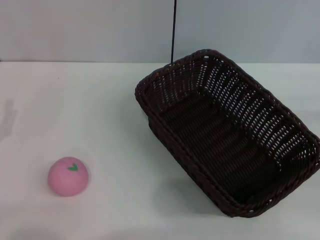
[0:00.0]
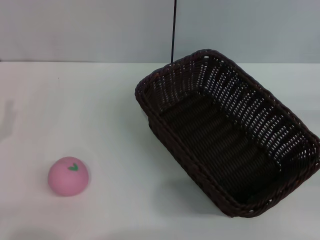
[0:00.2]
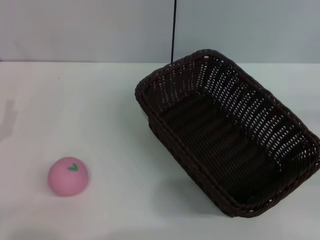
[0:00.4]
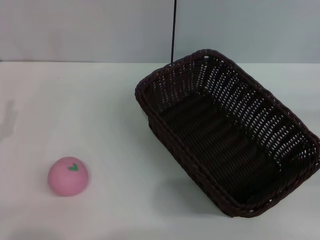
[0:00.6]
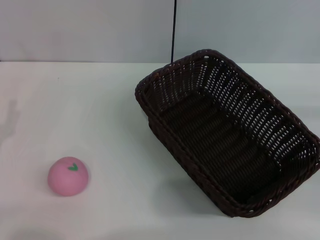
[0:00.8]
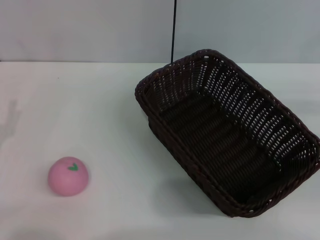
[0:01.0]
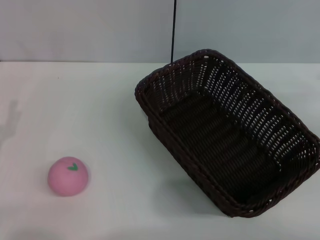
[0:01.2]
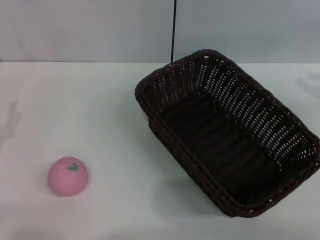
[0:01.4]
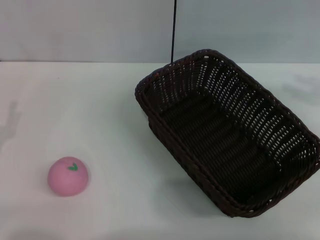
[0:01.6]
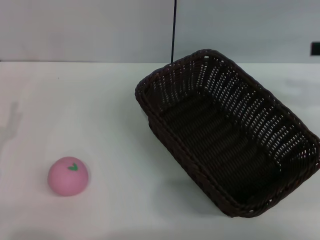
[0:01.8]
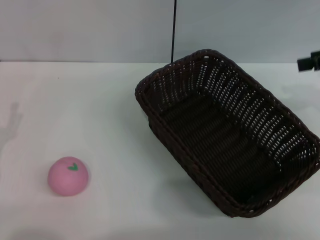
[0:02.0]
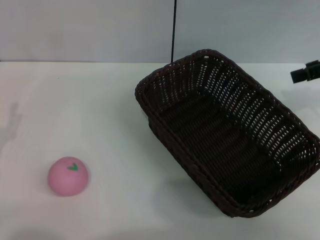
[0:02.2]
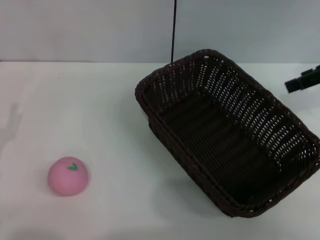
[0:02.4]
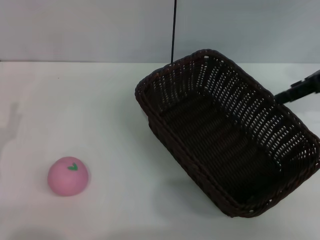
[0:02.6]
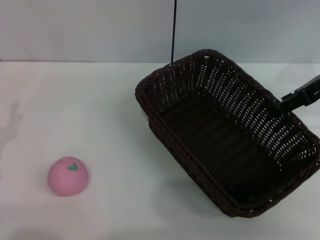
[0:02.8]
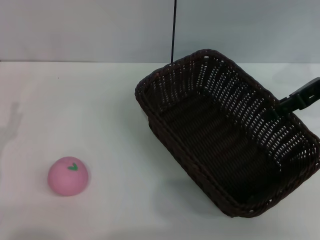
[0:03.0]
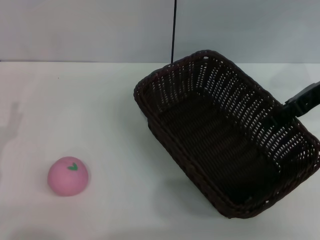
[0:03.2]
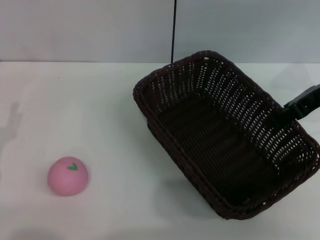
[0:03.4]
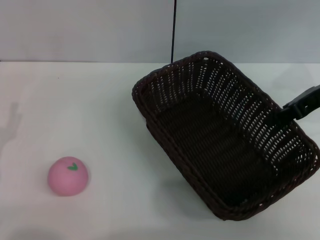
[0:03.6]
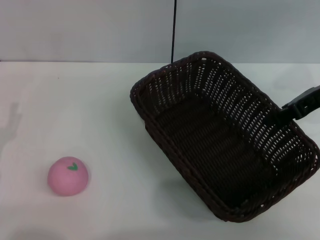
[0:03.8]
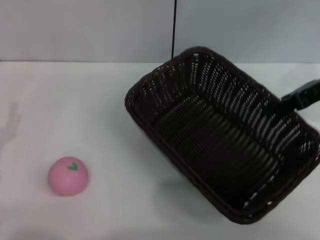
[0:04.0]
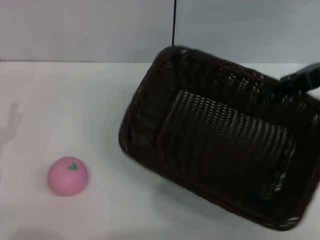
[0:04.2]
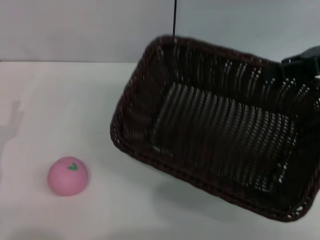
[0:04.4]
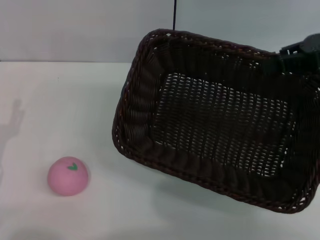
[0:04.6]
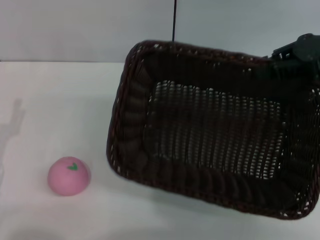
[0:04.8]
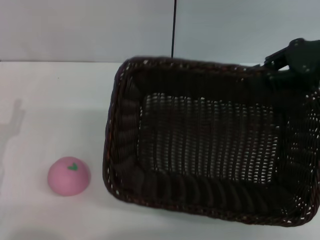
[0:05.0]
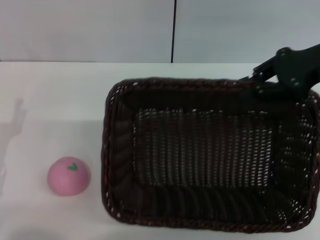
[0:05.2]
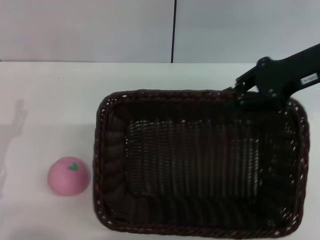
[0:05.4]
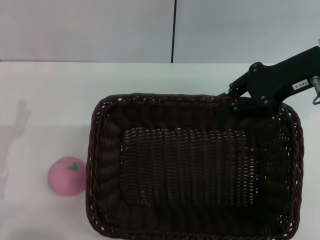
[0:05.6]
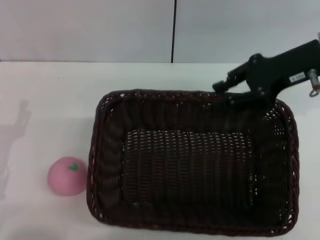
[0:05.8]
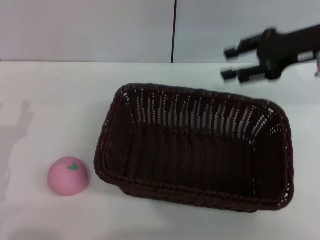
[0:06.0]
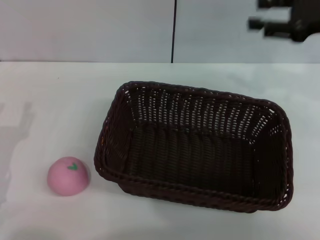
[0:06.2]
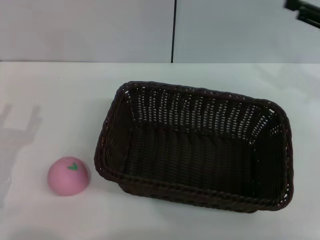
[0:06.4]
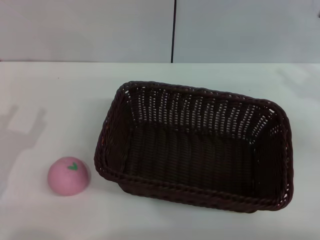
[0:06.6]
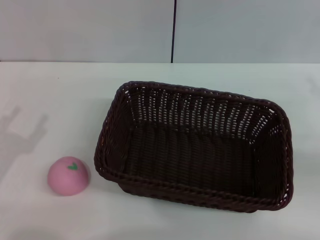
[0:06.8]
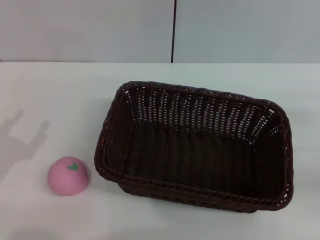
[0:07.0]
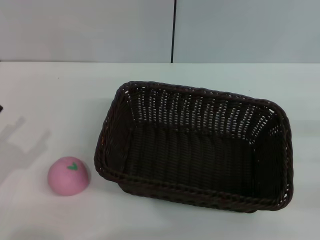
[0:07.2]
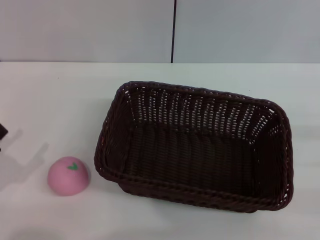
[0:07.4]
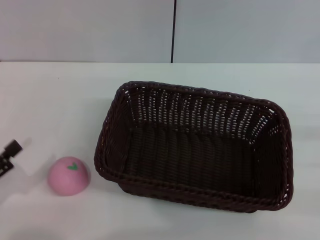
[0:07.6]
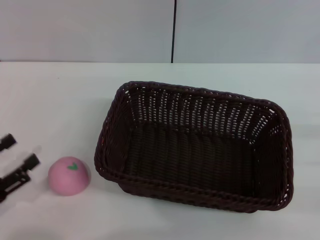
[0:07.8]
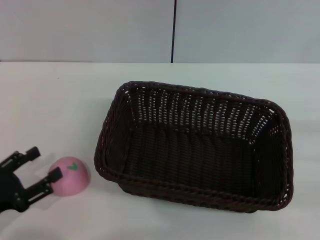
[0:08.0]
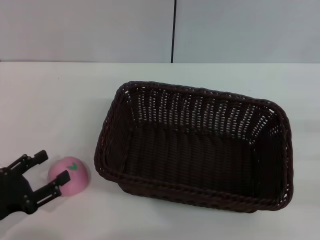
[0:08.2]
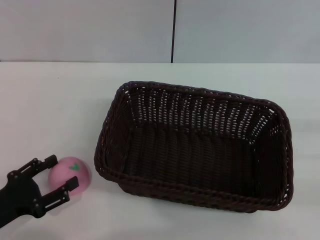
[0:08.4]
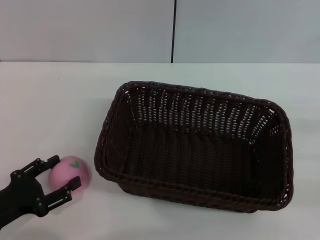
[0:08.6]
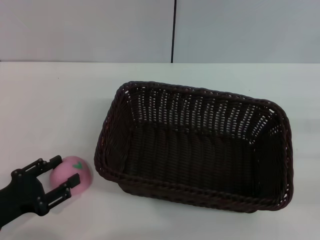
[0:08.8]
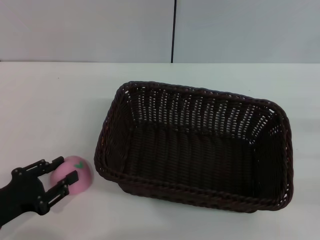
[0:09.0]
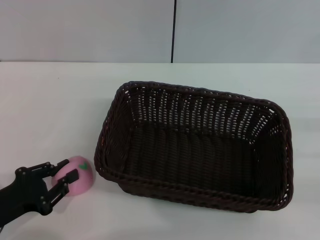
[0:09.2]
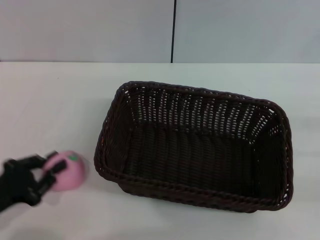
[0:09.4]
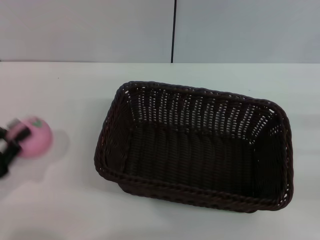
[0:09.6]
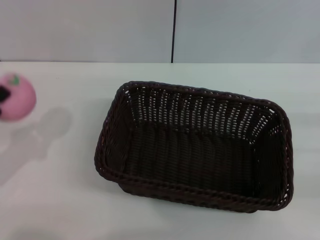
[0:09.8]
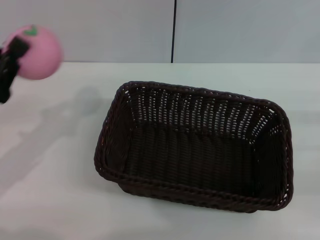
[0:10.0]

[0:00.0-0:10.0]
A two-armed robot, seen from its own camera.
Step, 0:00.0 to 0:04.4: Pick up the dark basket with the right gripper.
Step, 0:04.6 to 0:06.2: Place the dark basket in the center of view with the right gripper.
Step, 0:06.4 to 0:09.6: Pick up the peach with the left gripper.
0:00.0 to 0:01.4: The right gripper shifts about 15 cm upward and forward.
0:01.4 to 0:02.8: The right gripper is displaced to the left and forward by some 15 cm.
0:02.8 to 0:04.2: The right gripper closes.
0:04.2 to 0:05.8: The right gripper is displaced to the left by roughly 5 cm.
0:05.8 to 0:07.2: The left gripper moves approximately 5 cm. Meanwhile the right gripper goes about 30 cm to the right, backward and downward, and opens its fingers.
0:07.2 to 0:08.6: The left gripper ends up roughly 5 cm from where it was.
0:08.6 to 0:10.0: The left gripper goes some 10 cm upward and forward, and closes its fingers.

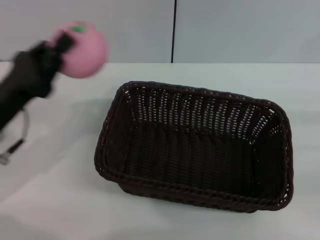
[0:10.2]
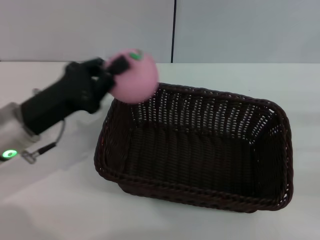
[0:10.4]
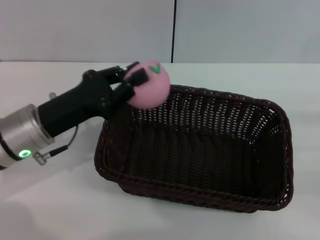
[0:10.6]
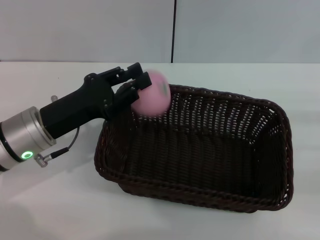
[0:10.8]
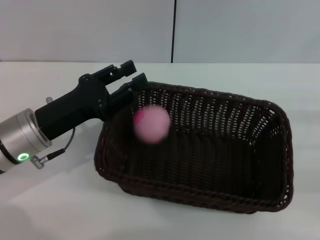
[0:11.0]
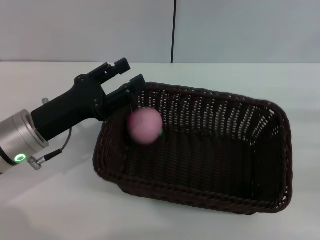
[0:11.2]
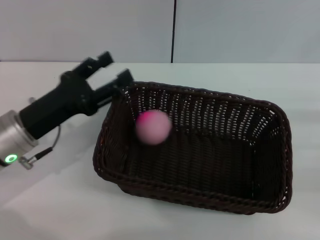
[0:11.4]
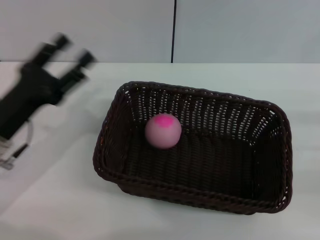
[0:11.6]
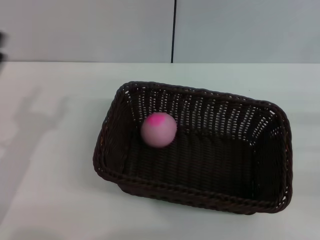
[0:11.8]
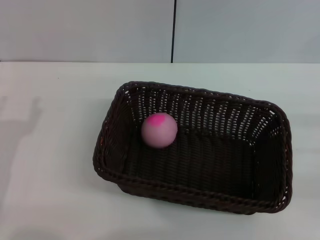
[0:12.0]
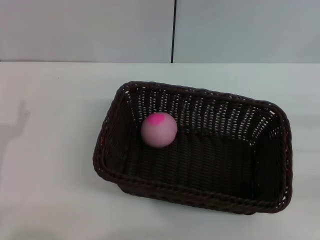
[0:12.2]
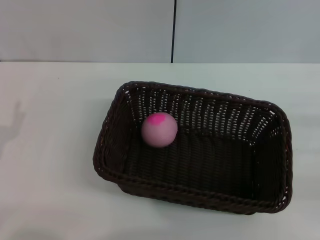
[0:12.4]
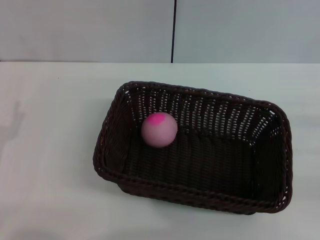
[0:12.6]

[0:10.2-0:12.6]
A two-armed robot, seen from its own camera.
Step, 0:10.2 to 0:11.2: Place the peach into the basket with the left gripper.
0:10.2 to 0:11.4: The left gripper opens.
0:11.4 to 0:12.6: The left gripper heads backward and to the left, covering approximately 10 cm.

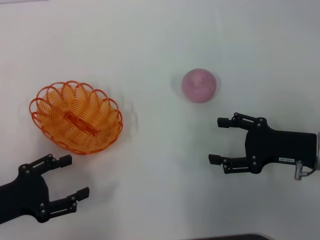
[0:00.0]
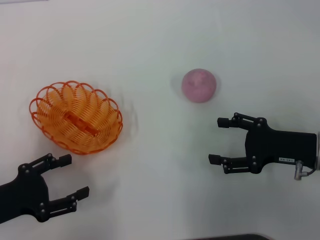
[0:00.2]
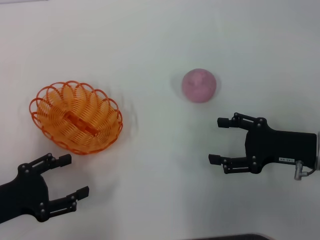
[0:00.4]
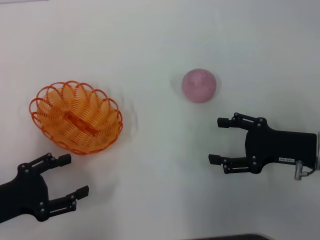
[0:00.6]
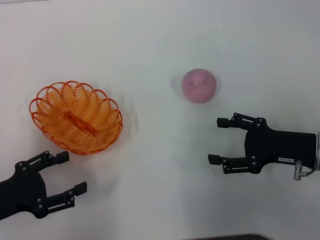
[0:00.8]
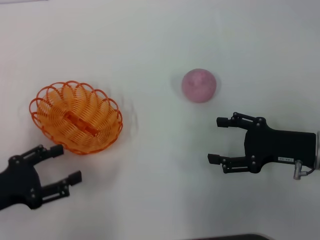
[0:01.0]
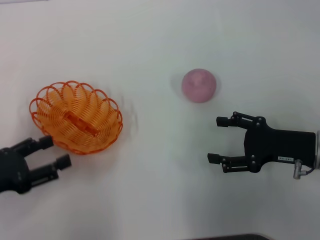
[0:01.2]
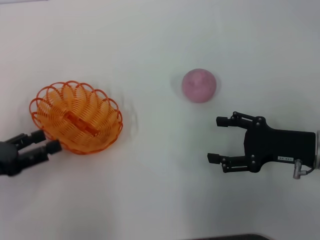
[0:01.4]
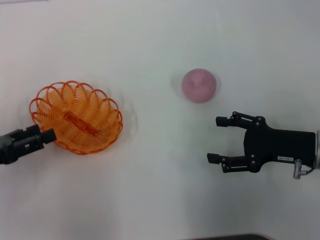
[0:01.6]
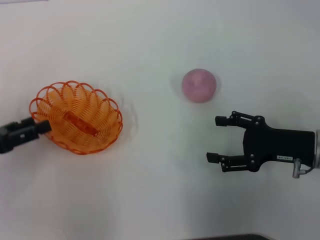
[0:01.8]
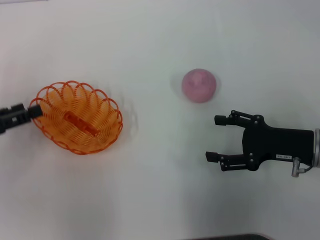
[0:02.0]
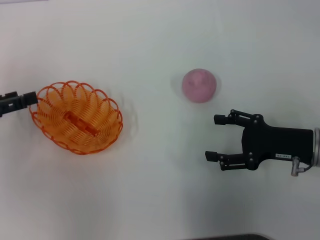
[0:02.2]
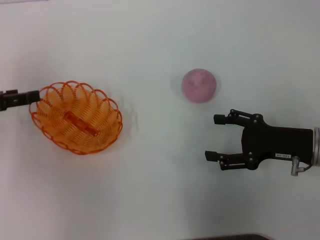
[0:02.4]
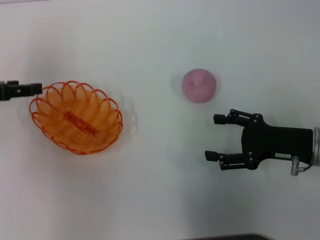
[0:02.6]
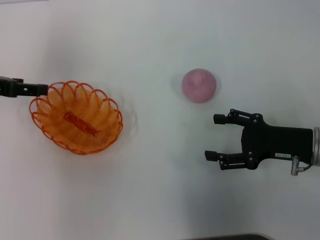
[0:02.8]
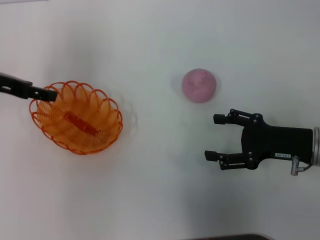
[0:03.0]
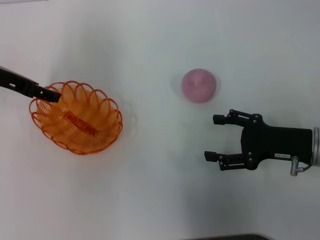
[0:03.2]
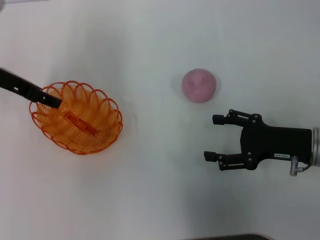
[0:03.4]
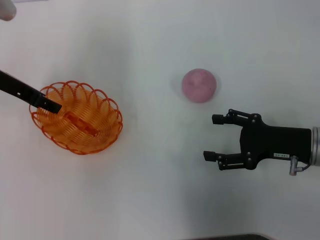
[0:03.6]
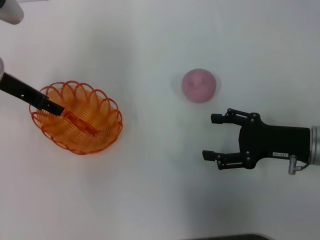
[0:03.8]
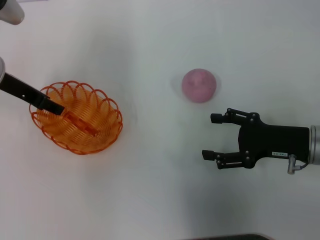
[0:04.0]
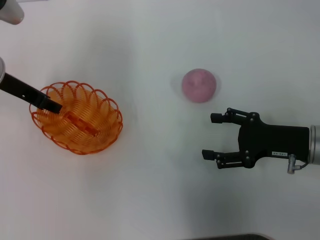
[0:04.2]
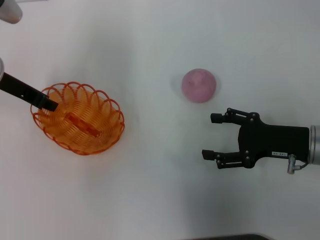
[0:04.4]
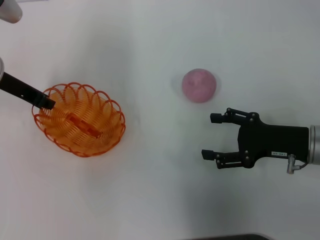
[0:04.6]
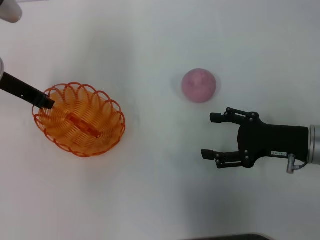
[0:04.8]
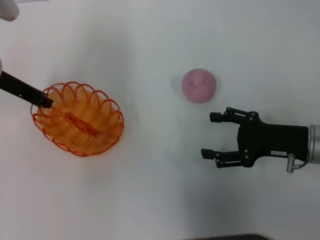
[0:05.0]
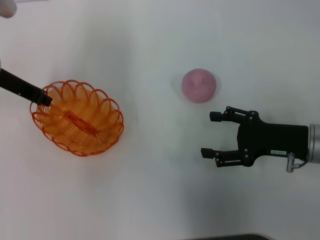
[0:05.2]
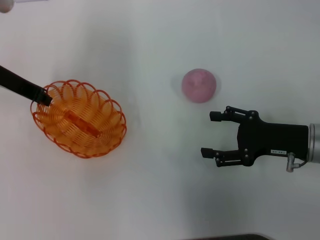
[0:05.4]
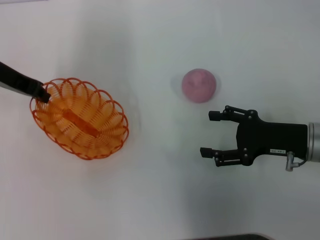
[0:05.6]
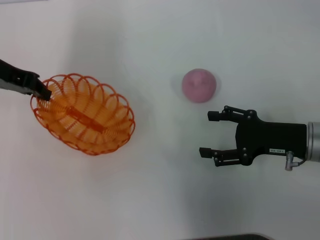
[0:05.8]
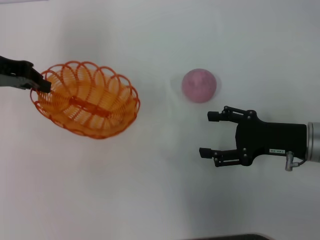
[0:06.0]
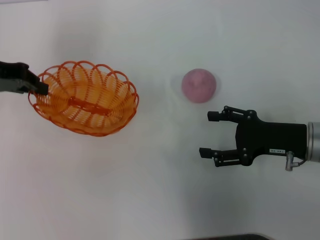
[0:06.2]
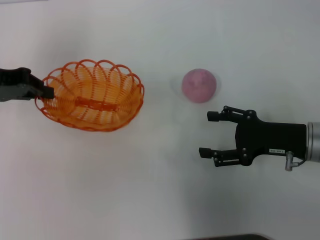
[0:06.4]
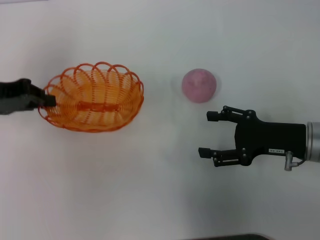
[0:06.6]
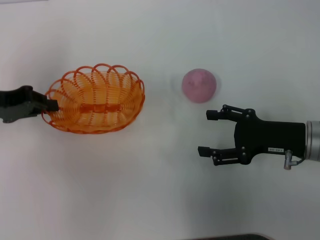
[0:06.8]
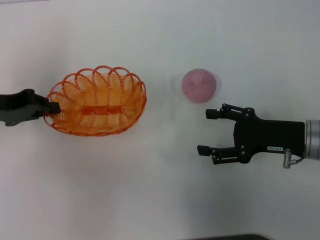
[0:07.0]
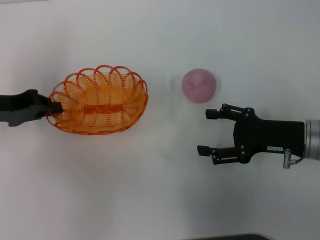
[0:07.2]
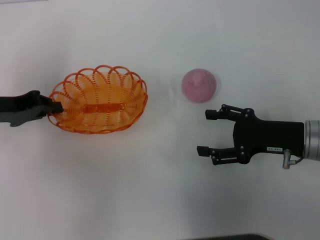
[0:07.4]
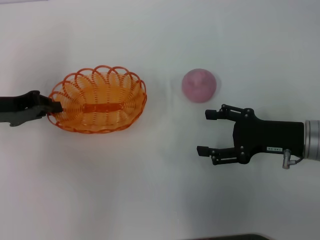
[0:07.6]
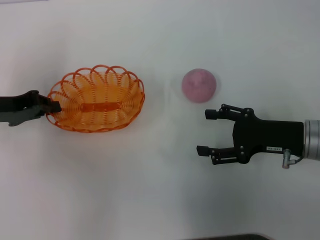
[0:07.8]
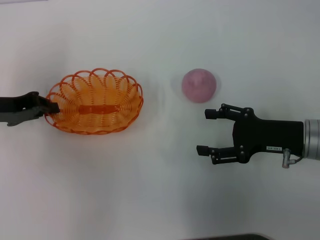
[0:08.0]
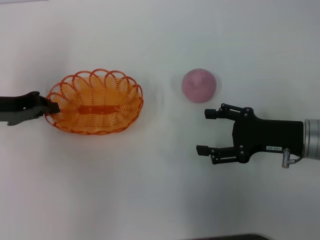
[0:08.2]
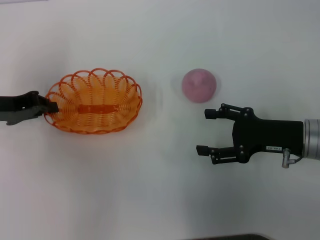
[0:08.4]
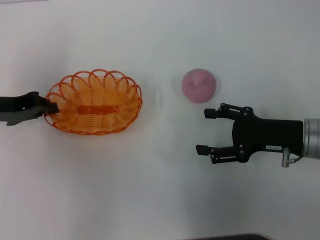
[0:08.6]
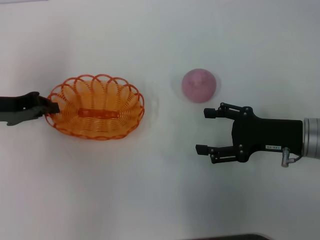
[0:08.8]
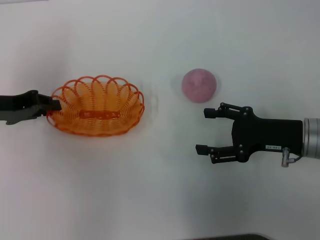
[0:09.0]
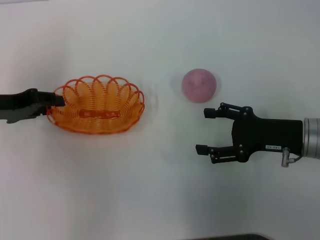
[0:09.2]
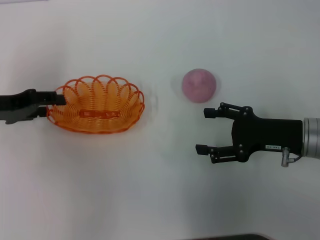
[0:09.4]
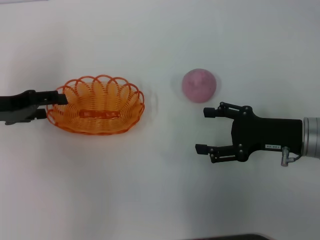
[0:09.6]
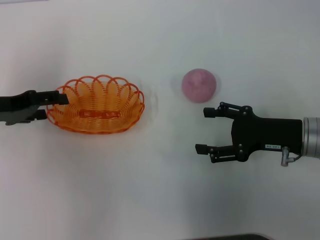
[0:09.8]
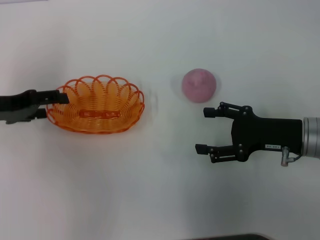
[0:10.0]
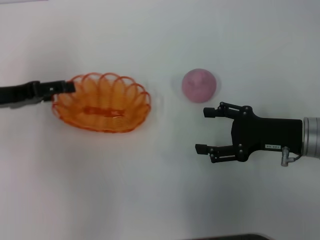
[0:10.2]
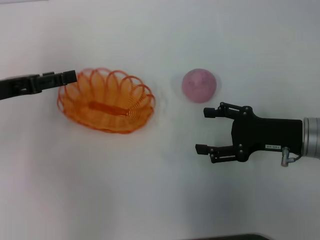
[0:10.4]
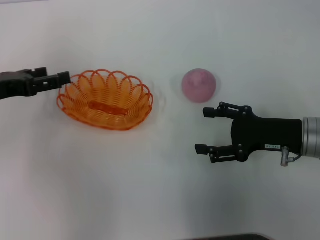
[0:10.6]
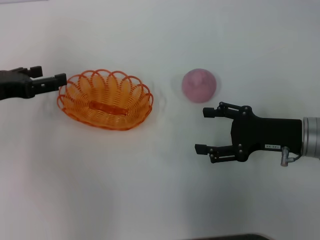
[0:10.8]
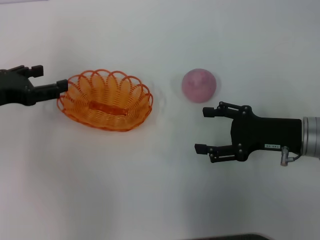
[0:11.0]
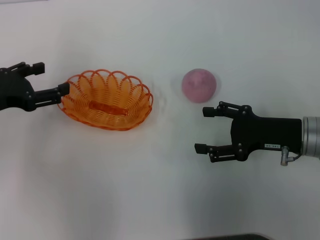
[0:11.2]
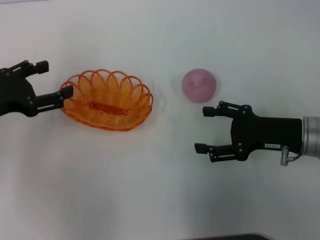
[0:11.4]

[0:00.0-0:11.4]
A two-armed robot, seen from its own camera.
Step, 0:00.0 to 0:06.0: Pick up the basket with the left gripper.
0:01.4 to 0:02.8: The left gripper moves forward and upward, roughly 15 cm.
0:02.8 to 0:04.2: The left gripper travels to the right by some 5 cm.
0:04.2 to 0:05.6: The left gripper closes its fingers.
0:05.6 to 0:07.2: The left gripper travels backward and downward by some 10 cm.
0:07.2 to 0:08.6: The grippers make only small movements.
0:08.6 to 0:10.0: The left gripper opens.
